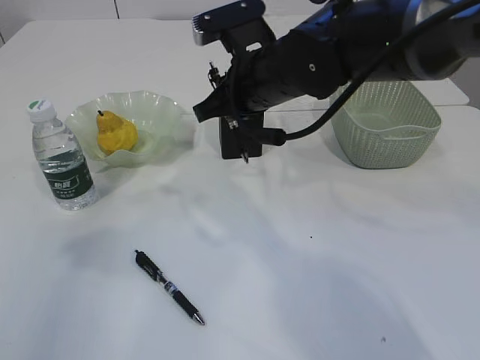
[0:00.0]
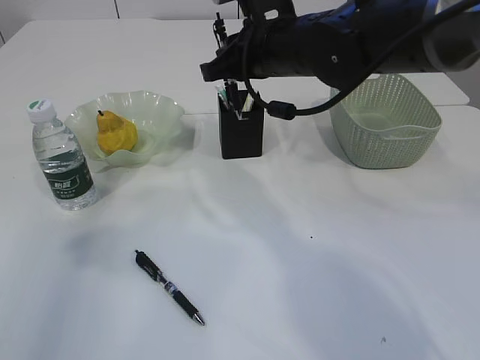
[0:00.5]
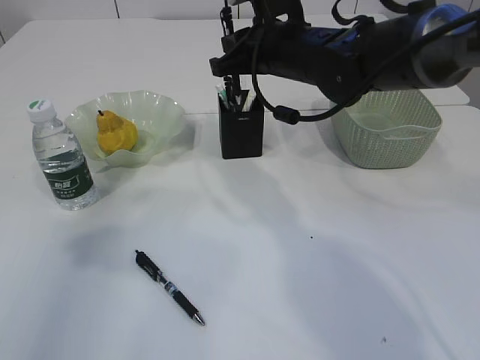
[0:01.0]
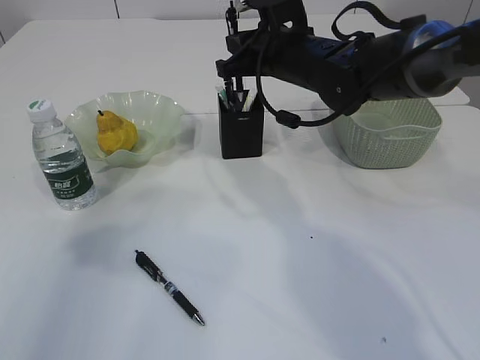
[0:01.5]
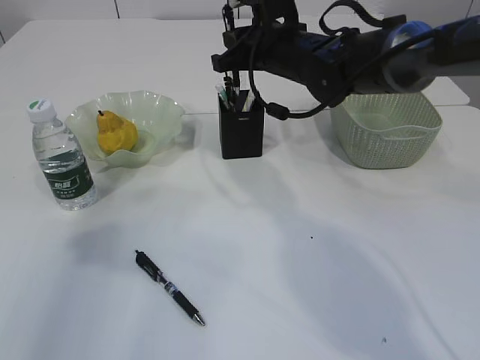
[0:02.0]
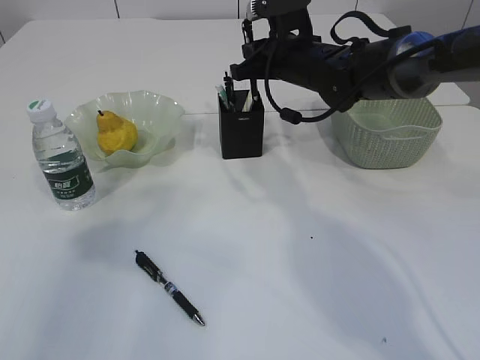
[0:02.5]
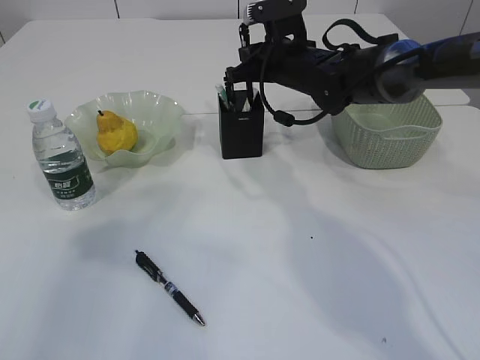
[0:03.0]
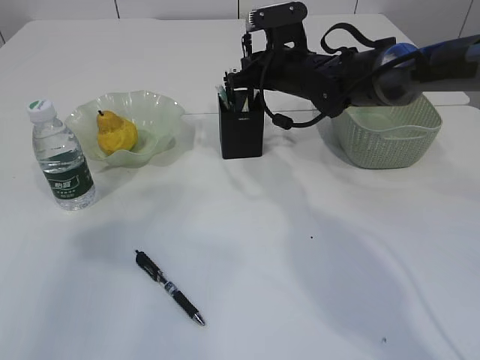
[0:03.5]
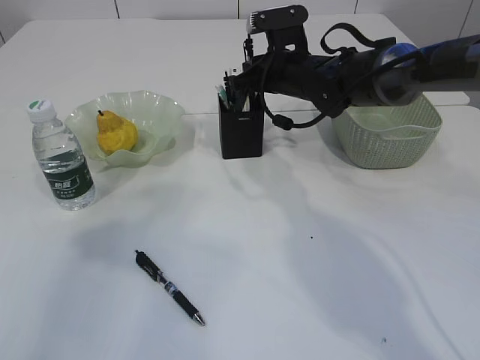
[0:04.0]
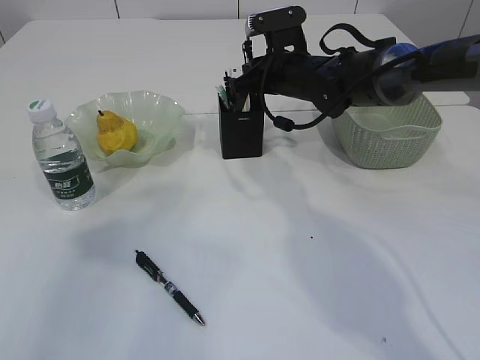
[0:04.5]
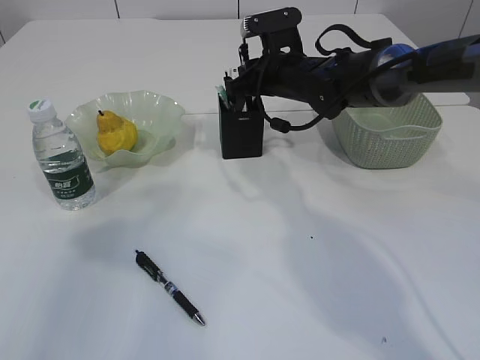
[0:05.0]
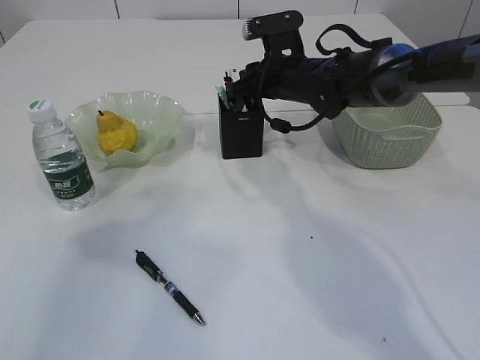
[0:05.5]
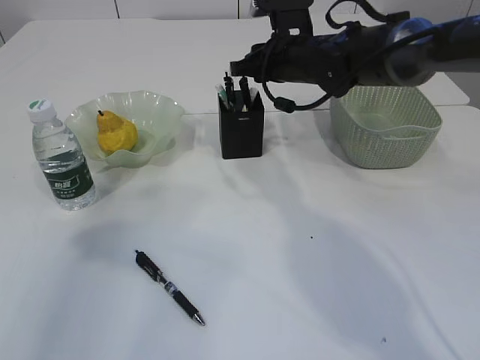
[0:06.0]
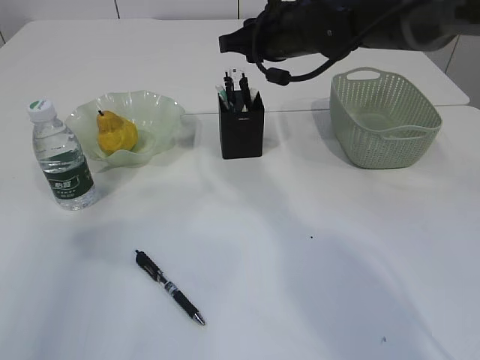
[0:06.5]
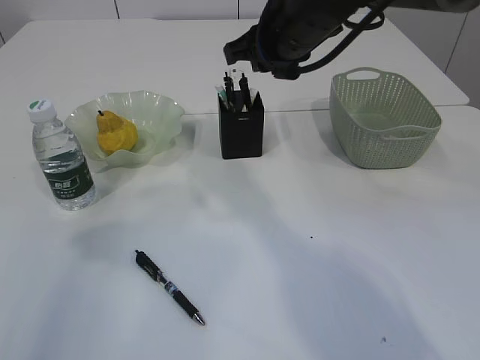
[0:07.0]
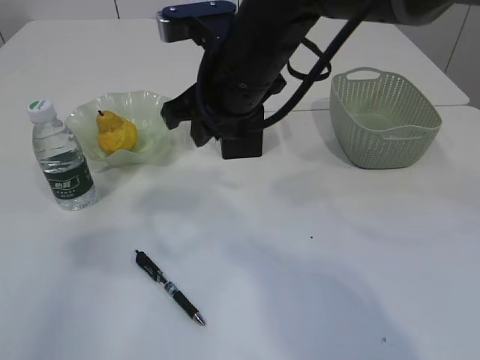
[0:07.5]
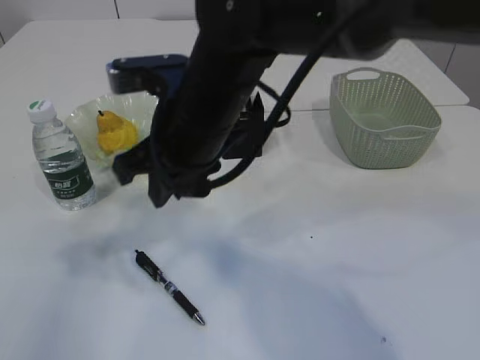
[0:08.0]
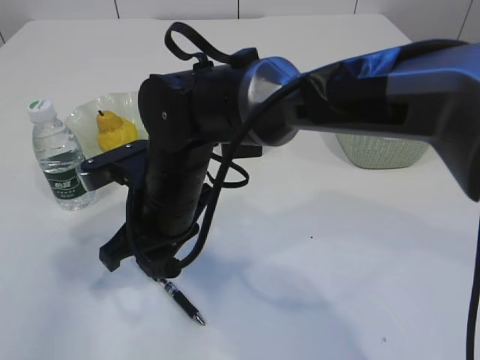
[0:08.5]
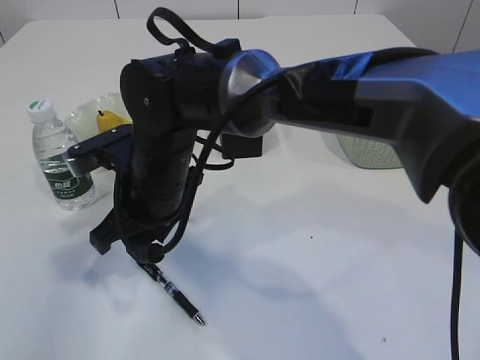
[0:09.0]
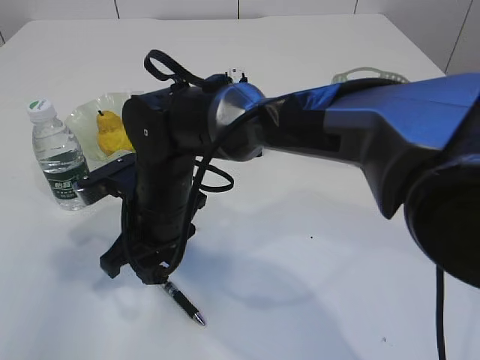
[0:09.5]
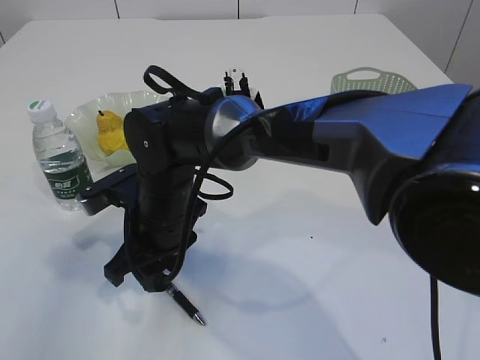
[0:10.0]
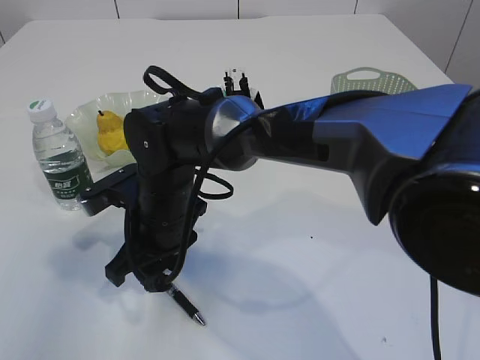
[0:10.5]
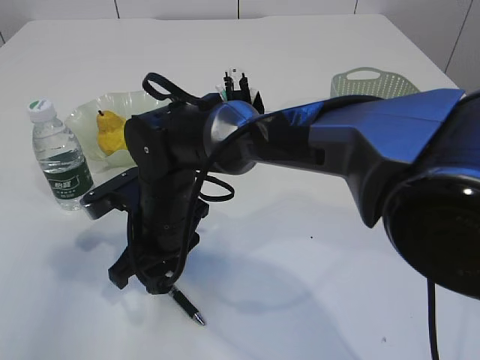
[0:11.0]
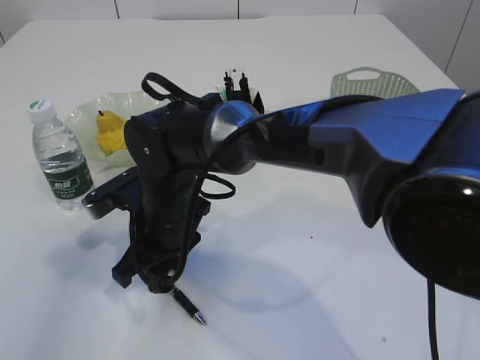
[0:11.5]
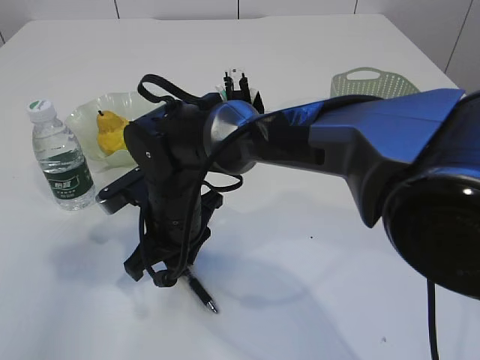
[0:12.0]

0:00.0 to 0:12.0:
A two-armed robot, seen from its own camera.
Step, 0:00.0 to 0:06.0: Place the pen into the pen holder.
0:00.0 to 0:02.0: The right gripper heads forward, covering about 10 cm.
0:02.0 to 0:04.0: The right gripper changes place by some 5 cm.
0:04.0 to 0:06.0: The grippers move only a little.
0:06.0 to 0:08.0: The right gripper shifts some 20 cm backward and to the left.
0:08.0 to 0:10.0: The right gripper travels downward and to the left by roughly 15 cm.
0:10.0 to 0:12.0: The grippers stay close to where they were, moving slightly.

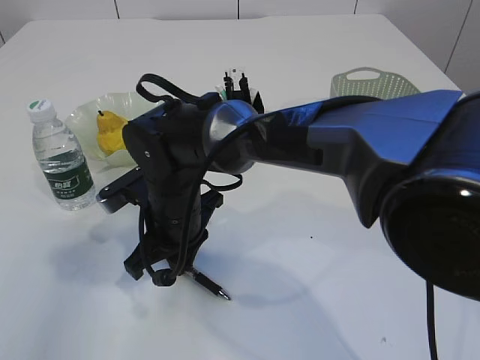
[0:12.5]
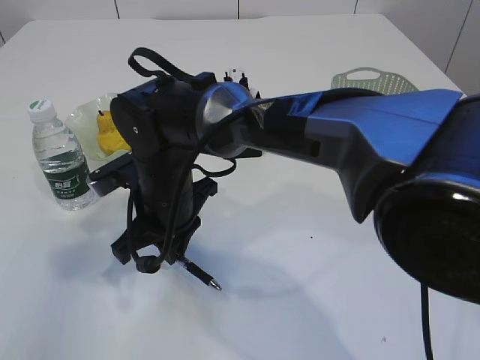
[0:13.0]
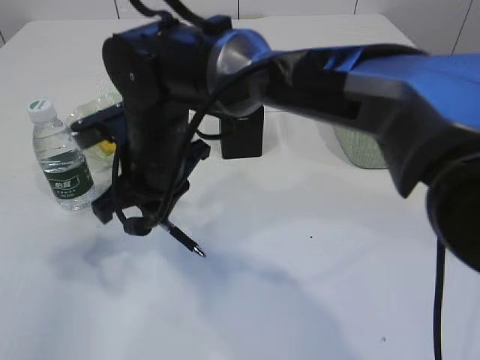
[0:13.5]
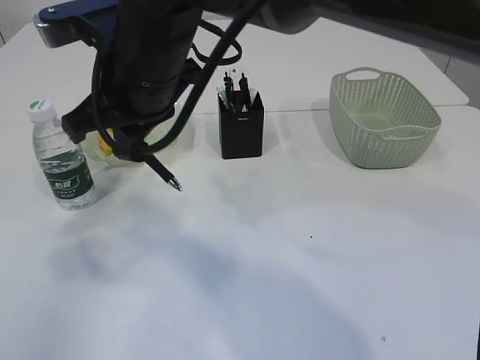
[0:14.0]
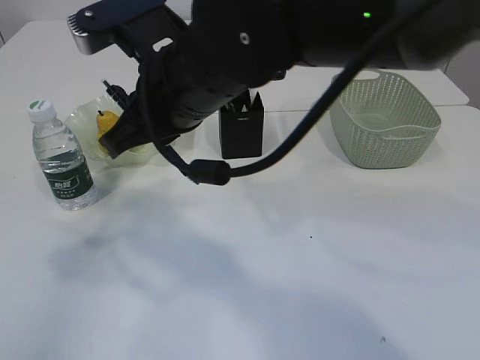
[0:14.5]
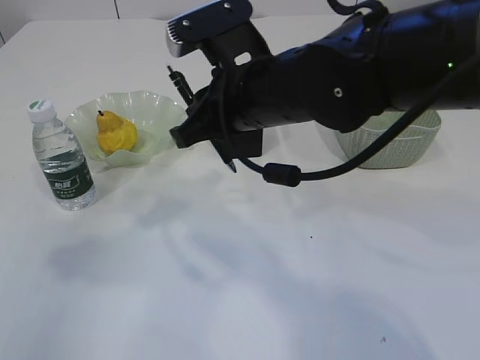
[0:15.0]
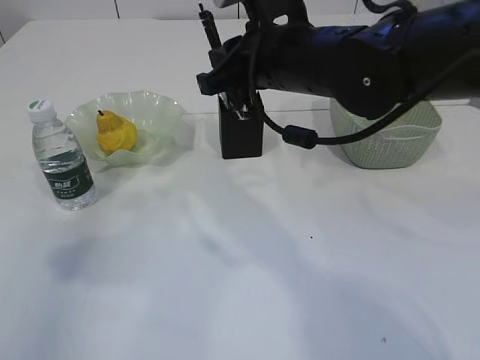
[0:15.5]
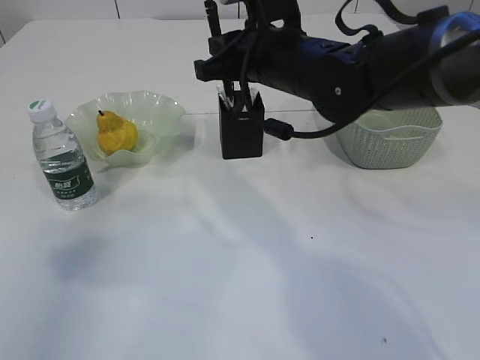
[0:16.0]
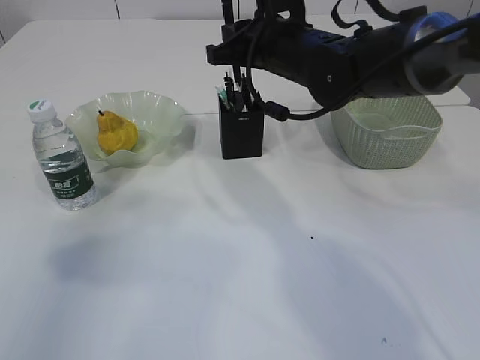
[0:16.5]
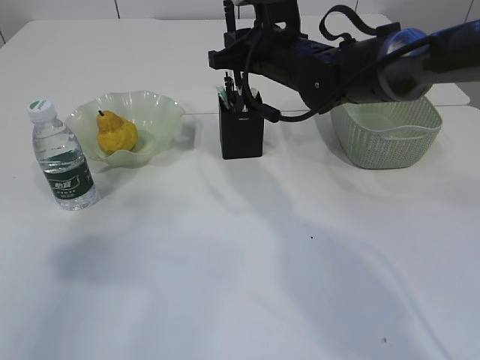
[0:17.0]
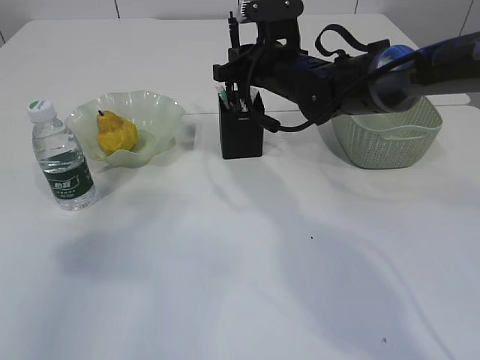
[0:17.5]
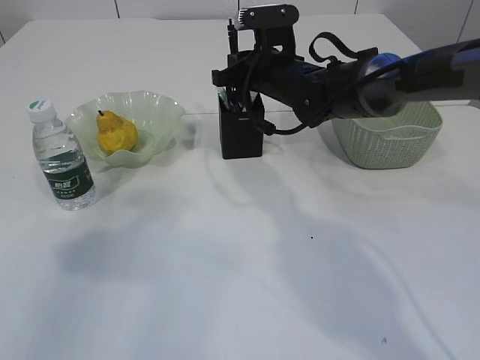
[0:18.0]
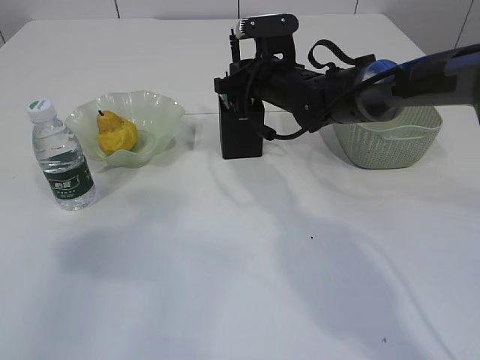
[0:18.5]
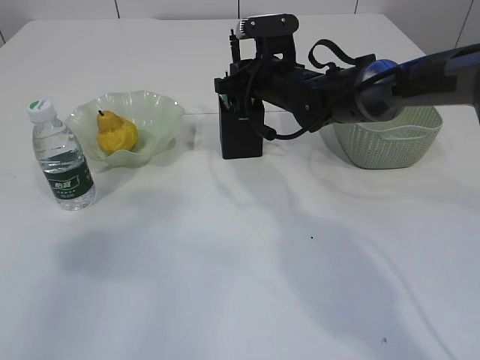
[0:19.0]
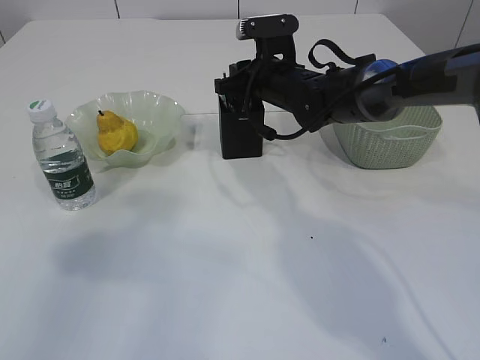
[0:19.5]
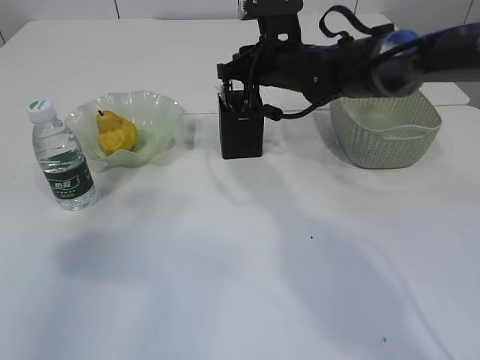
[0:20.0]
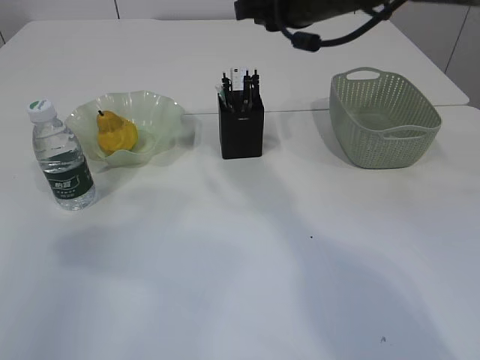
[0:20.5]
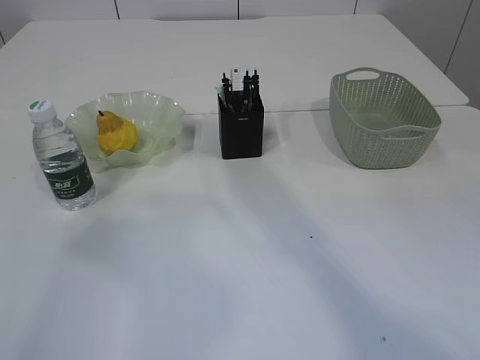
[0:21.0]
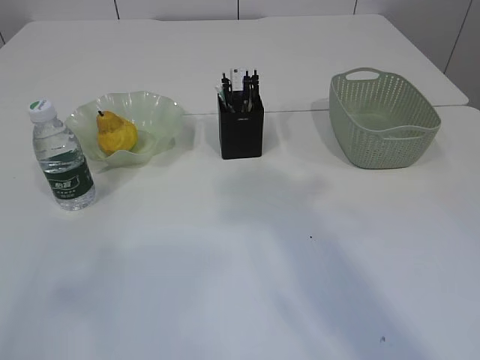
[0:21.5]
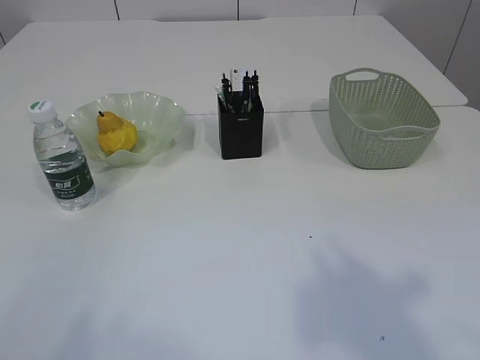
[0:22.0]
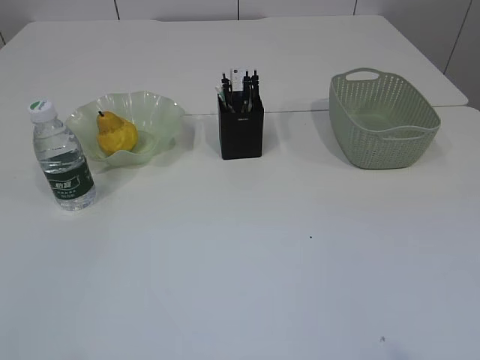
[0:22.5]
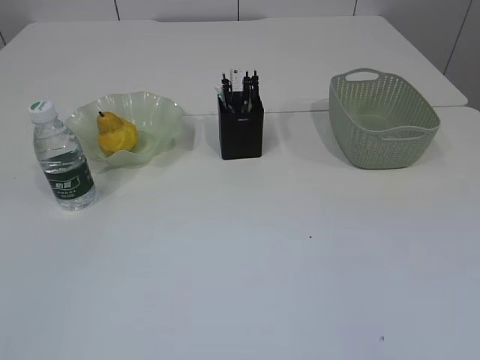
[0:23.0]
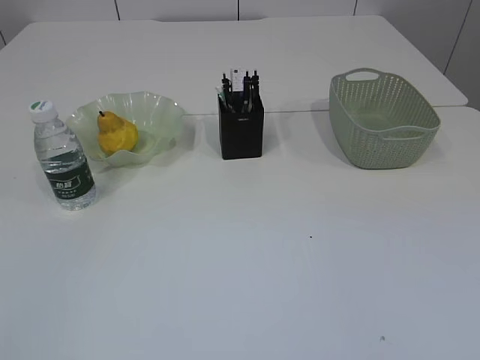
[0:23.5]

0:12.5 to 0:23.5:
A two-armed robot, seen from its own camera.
Step, 0:13.5 to 0:19.5: Place the pen into the pen holder.
0:12.5 to 0:14.5: The right gripper is displaced upward by roughly 15 cm.
0:14.5 to 0:16.0: The right gripper moves to the right and forward, some 15 cm.
0:16.0 to 0:18.0: The right gripper goes approximately 10 cm forward and downward.
0:18.0 to 0:20.0: The grippers make only small movements.
0:20.0 to 0:21.5: The right gripper goes some 35 cm backward, upward and to the right. The left gripper travels backward and upward by some 10 cm.

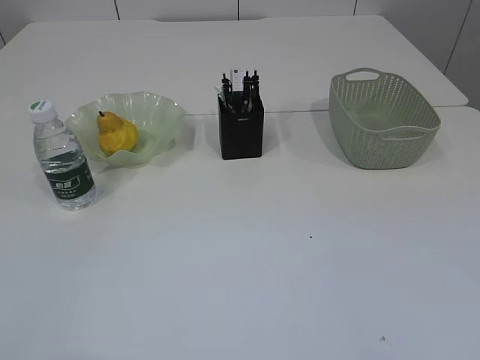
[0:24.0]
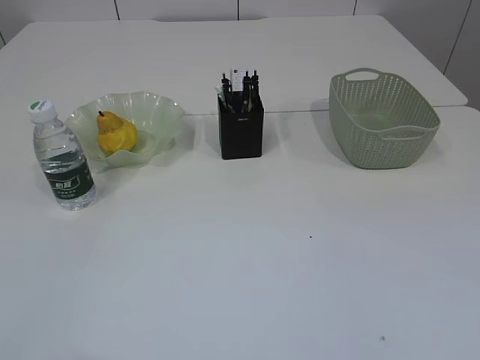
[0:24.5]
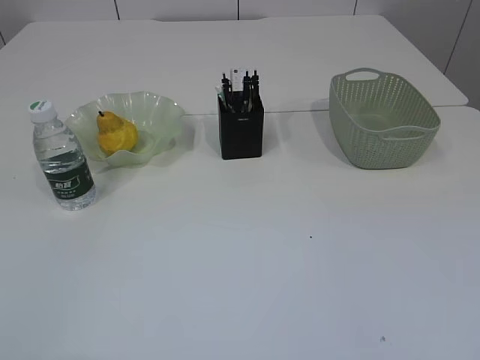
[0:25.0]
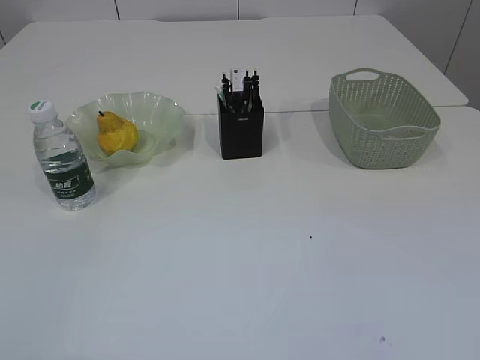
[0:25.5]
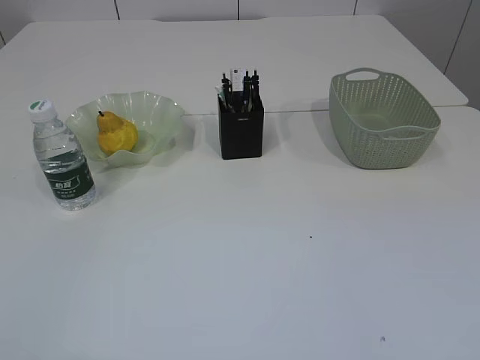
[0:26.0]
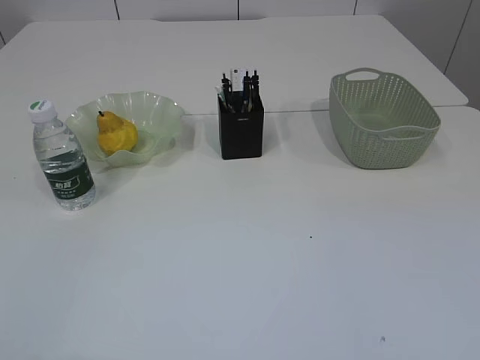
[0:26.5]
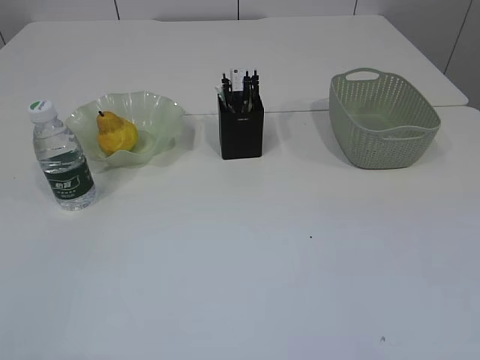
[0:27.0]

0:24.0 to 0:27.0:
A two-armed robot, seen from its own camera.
0:25.5 to 0:27.0: The two grippers keep their place.
